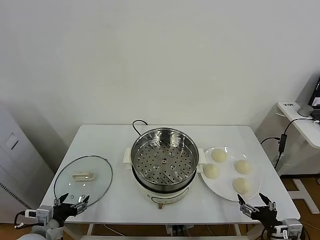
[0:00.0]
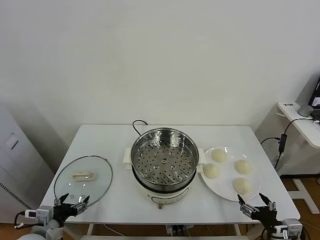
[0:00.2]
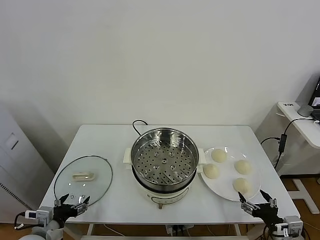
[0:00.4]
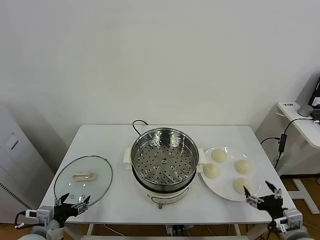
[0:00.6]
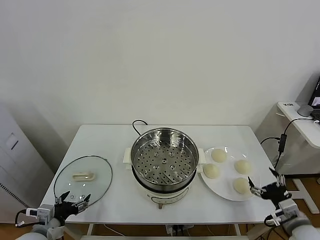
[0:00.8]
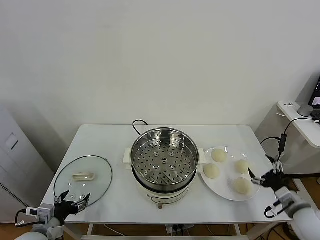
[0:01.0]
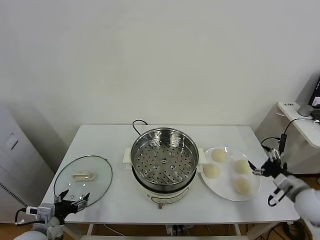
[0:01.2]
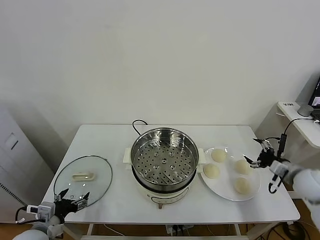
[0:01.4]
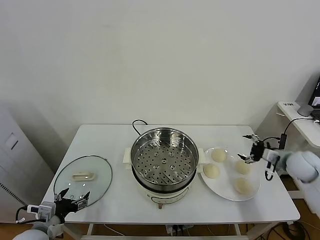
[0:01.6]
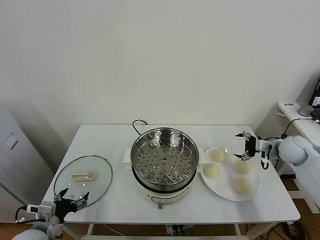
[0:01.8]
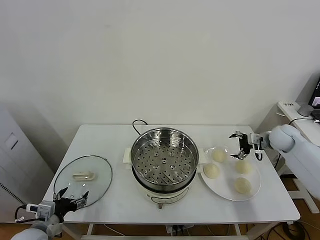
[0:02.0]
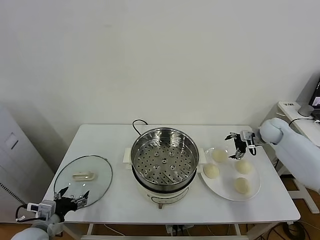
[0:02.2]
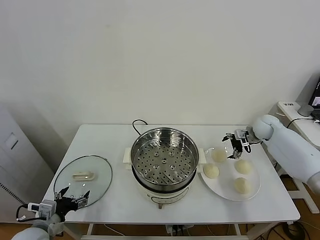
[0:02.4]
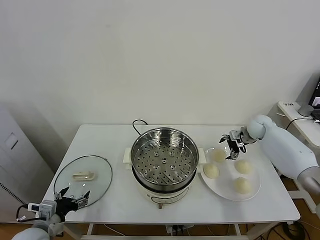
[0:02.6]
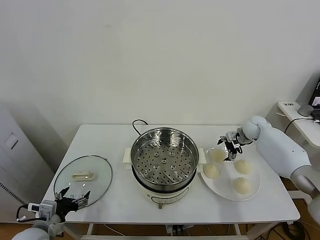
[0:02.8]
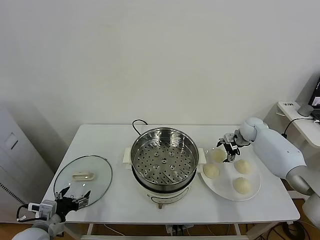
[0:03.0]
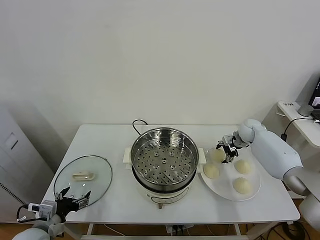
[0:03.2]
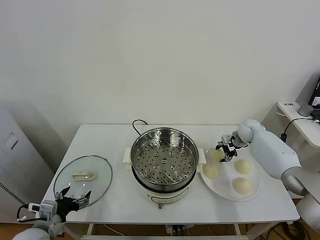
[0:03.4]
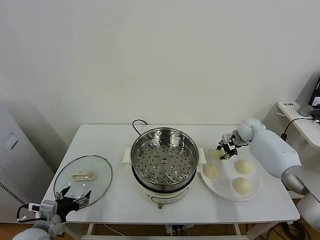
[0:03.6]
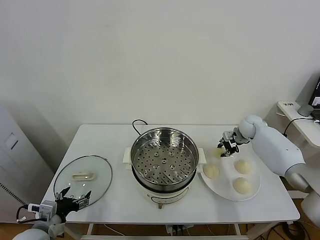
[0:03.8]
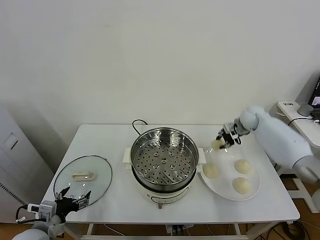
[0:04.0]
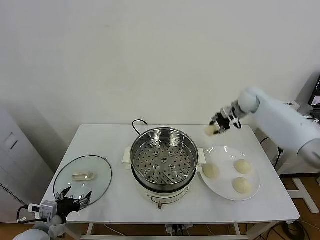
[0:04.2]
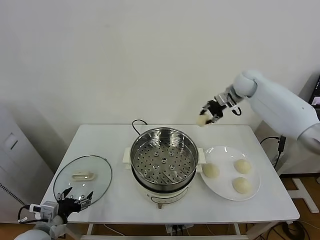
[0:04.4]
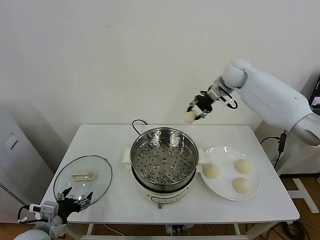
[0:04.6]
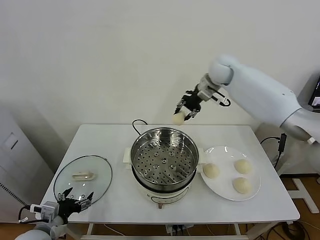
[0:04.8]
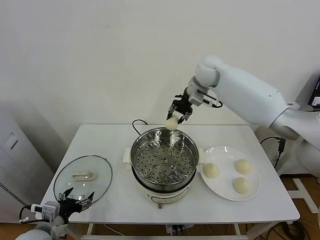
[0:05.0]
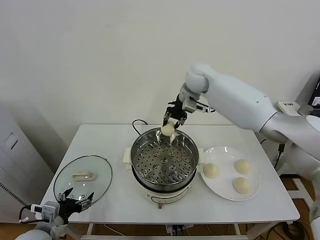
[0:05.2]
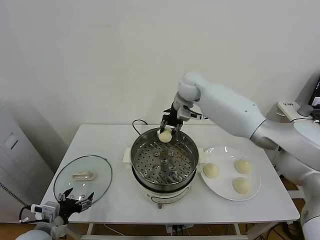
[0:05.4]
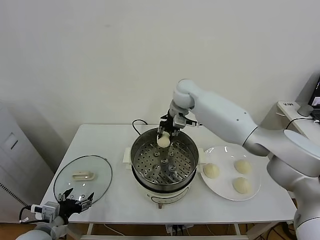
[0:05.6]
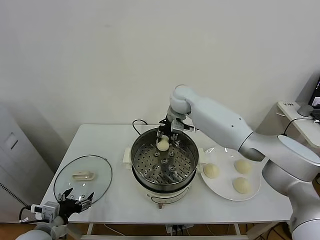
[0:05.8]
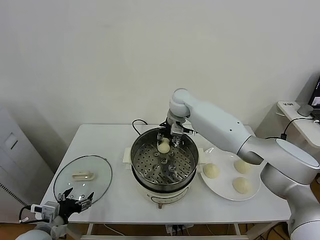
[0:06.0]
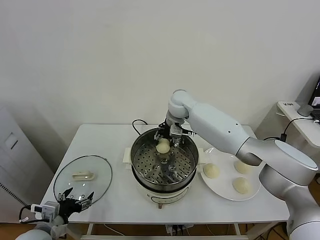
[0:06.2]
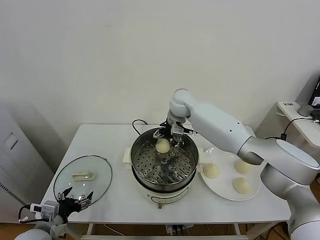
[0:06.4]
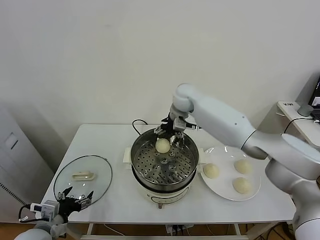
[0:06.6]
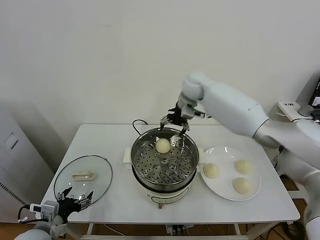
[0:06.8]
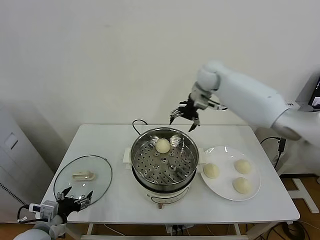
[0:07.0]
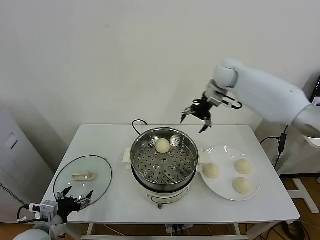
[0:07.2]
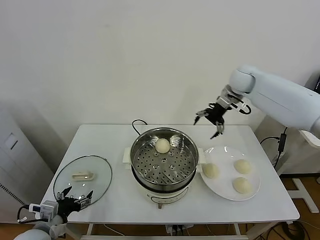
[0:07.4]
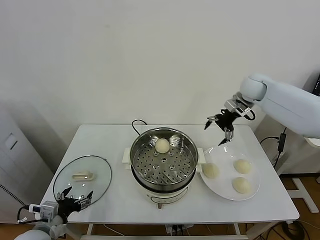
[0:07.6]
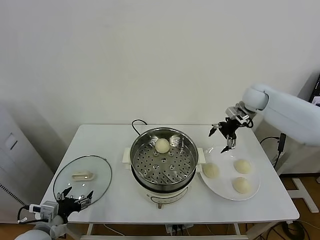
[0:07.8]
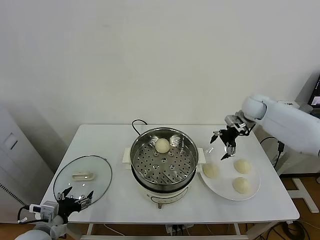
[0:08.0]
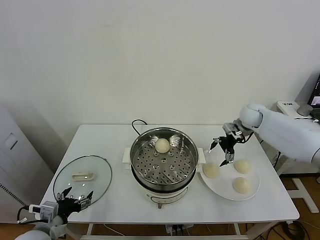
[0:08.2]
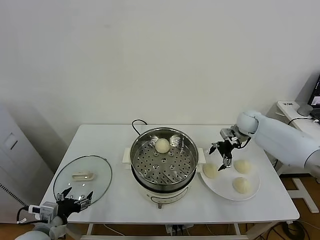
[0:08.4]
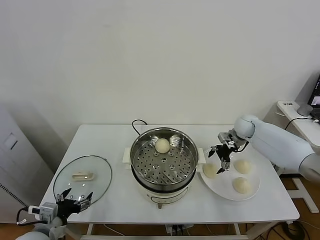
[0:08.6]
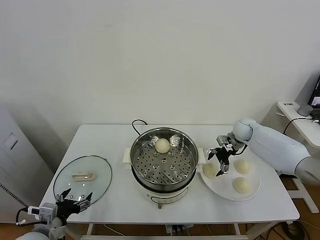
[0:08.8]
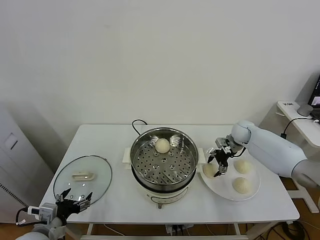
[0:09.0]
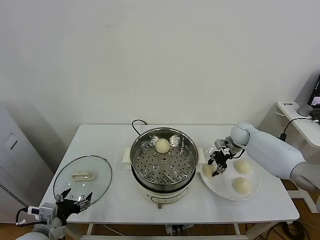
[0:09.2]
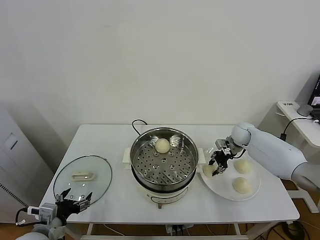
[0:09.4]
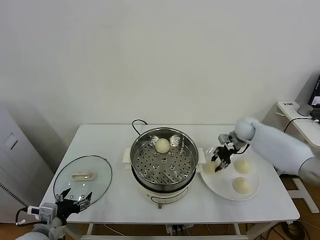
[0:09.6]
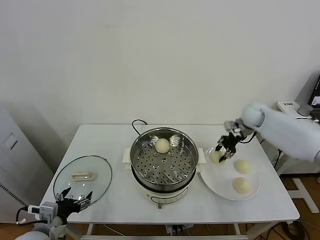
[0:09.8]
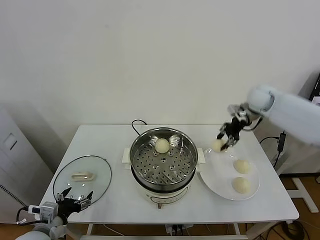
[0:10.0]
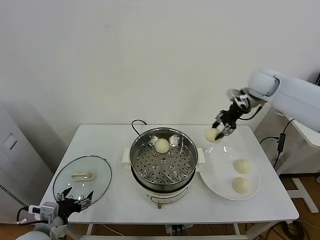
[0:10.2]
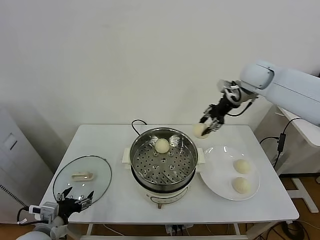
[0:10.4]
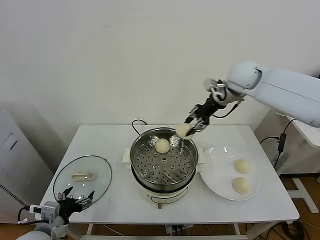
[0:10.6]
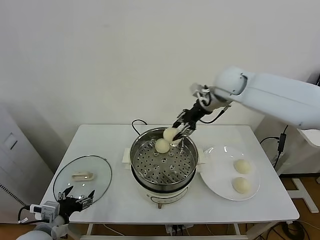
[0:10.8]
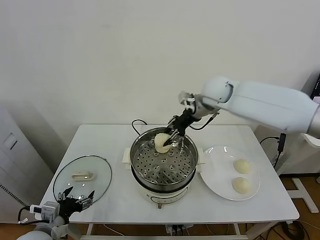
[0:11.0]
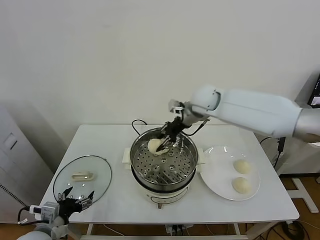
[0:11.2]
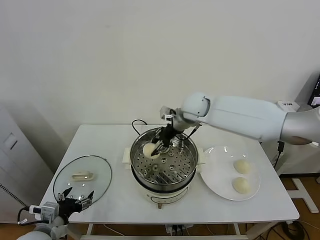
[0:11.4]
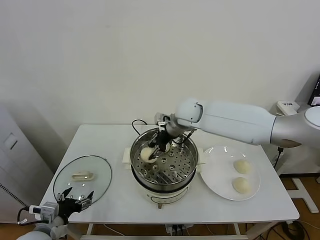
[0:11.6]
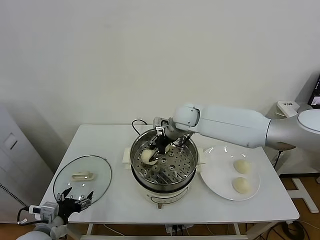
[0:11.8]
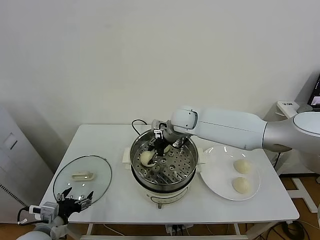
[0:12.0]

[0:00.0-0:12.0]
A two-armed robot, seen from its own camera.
Task of the whole recording: take steamed baozi put them in steamer.
Step, 0:00.0 to 0:03.4: Grasp the baozi in the plate with right gripper.
Step, 0:03.6 to 0:06.4: Place the baozi on the steamer with right gripper.
Step, 0:06.6 to 0:09.2: Grasp the baozi in the plate with right gripper.
0:01.6 to 0:03.0: The right gripper is displaced forward and to the left by some 20 cm.
0:03.0 to 0:04.4: The right gripper goes about 25 cm upward and to the left, and closes its fingers.
0:04.4 to 0:06.0: The right gripper heads to the left and downward, covering roughly 25 cm.
0:06.0 to 0:07.6: The right gripper moves to the right, about 25 cm, and opens.
0:07.6 to 0:09.0: The right gripper moves downward, about 20 cm, and closes.
0:09.0 to 0:10.4: The right gripper heads upward, covering some 25 cm, and closes its fingers.
0:10.4 to 0:12.0: The right gripper travels to the left and downward by roughly 25 cm.

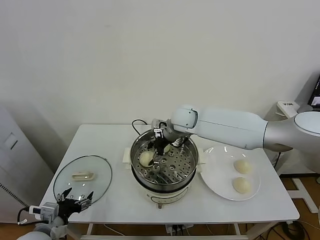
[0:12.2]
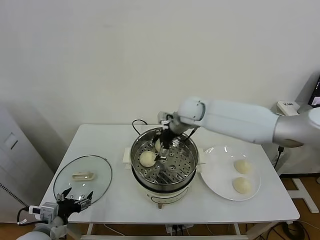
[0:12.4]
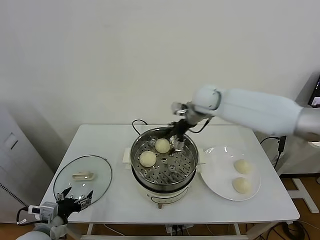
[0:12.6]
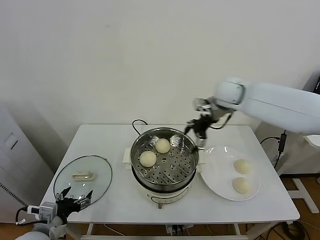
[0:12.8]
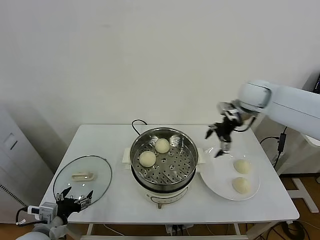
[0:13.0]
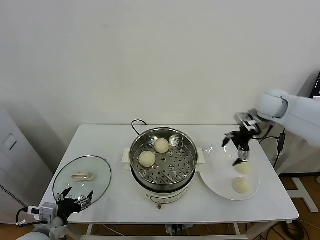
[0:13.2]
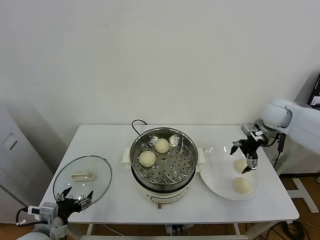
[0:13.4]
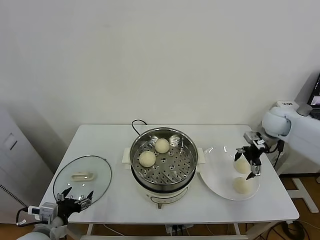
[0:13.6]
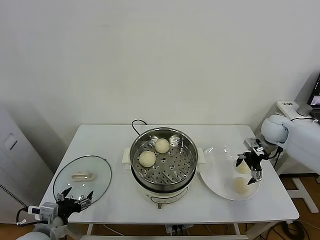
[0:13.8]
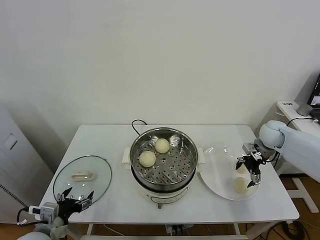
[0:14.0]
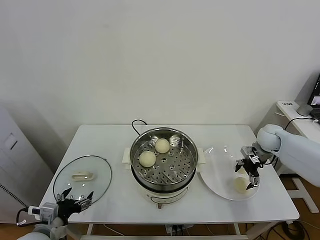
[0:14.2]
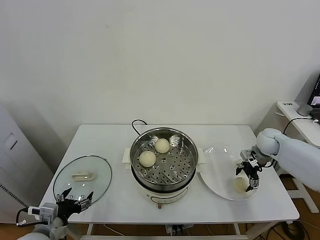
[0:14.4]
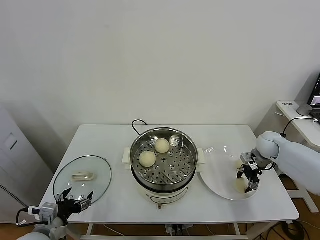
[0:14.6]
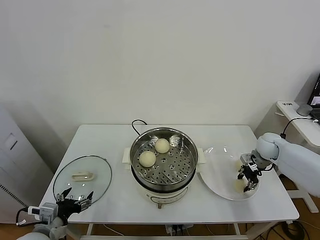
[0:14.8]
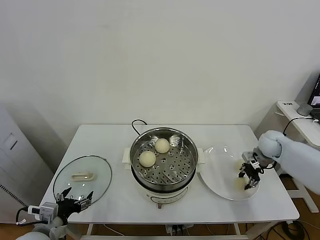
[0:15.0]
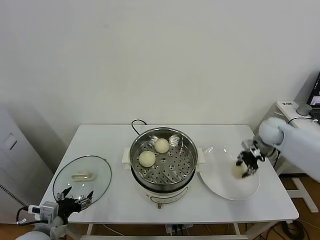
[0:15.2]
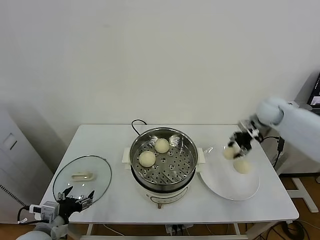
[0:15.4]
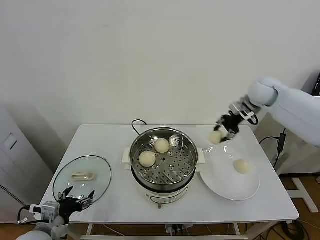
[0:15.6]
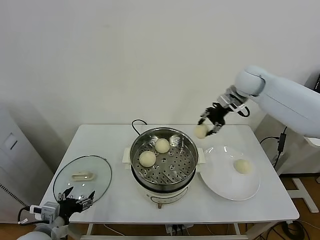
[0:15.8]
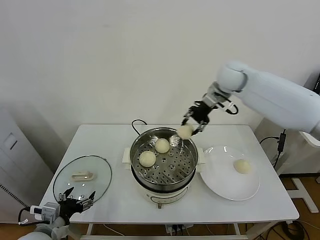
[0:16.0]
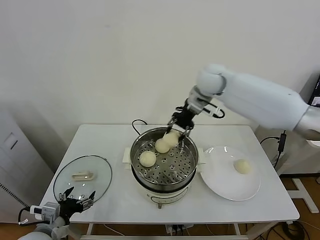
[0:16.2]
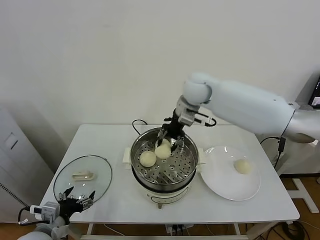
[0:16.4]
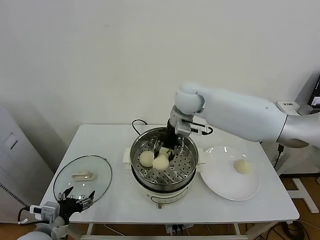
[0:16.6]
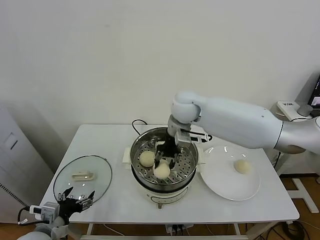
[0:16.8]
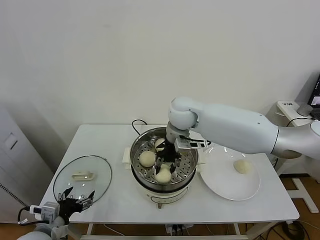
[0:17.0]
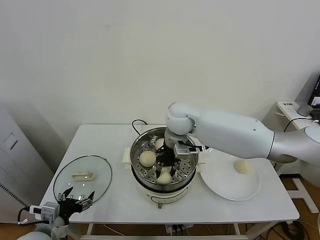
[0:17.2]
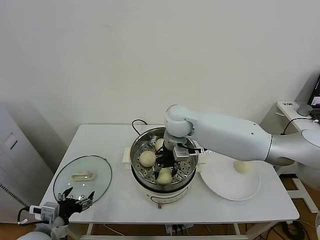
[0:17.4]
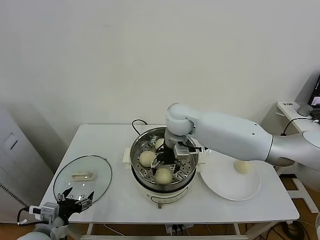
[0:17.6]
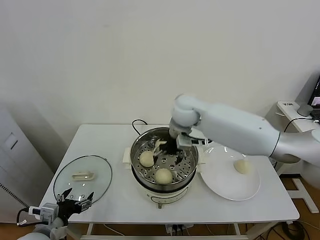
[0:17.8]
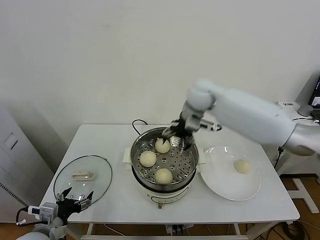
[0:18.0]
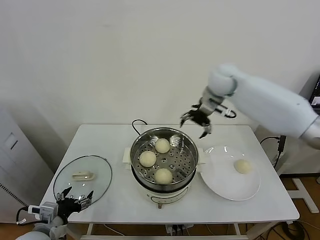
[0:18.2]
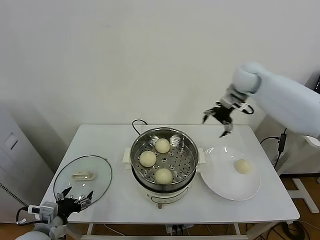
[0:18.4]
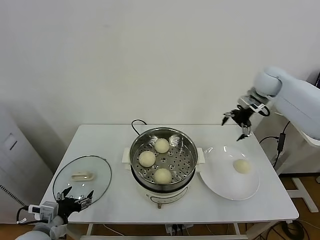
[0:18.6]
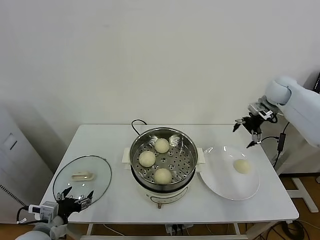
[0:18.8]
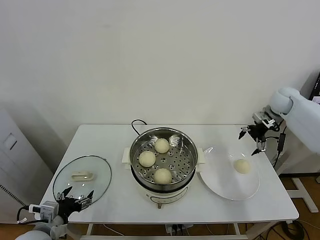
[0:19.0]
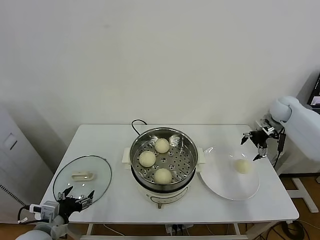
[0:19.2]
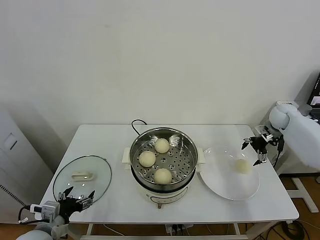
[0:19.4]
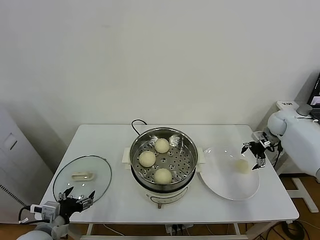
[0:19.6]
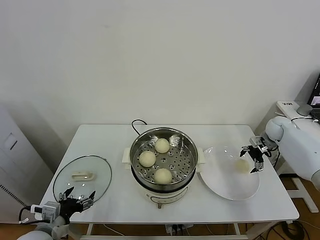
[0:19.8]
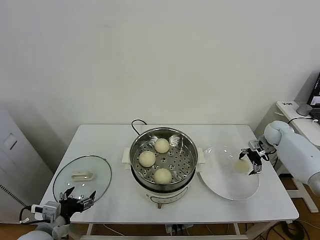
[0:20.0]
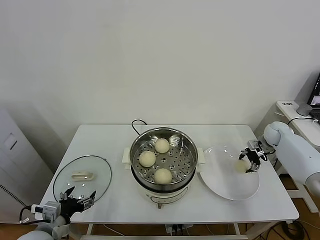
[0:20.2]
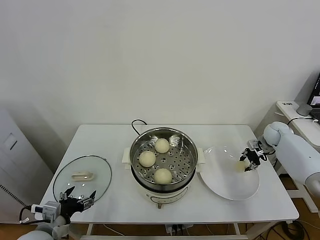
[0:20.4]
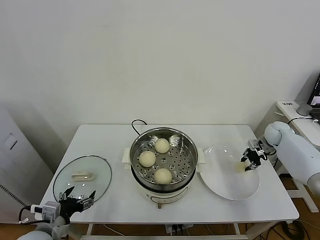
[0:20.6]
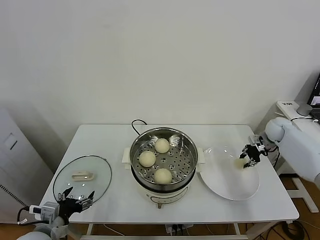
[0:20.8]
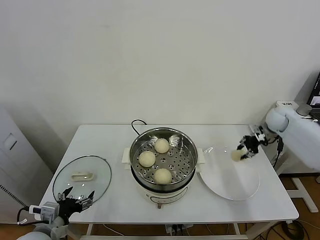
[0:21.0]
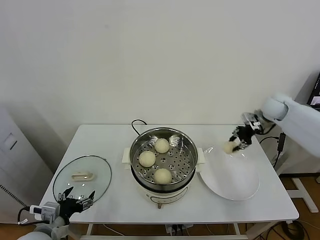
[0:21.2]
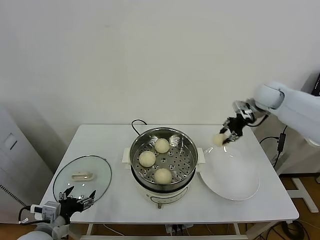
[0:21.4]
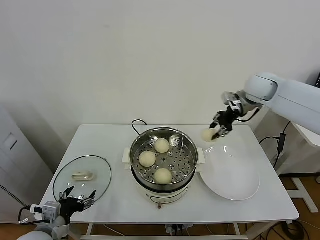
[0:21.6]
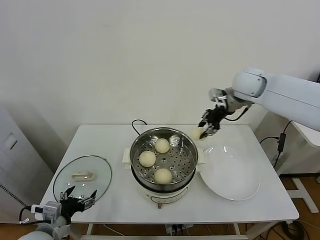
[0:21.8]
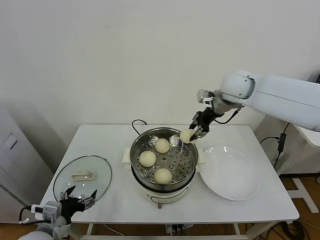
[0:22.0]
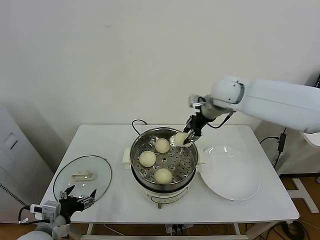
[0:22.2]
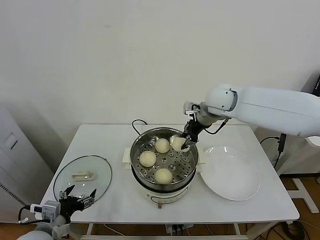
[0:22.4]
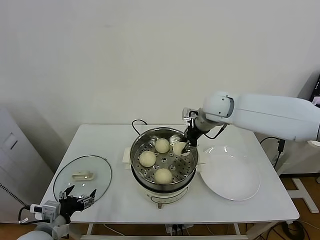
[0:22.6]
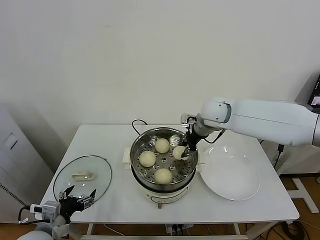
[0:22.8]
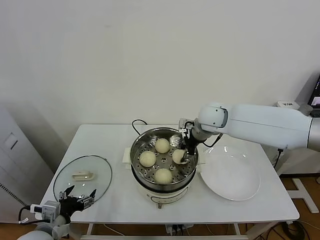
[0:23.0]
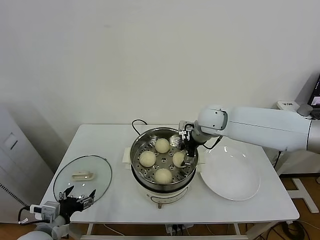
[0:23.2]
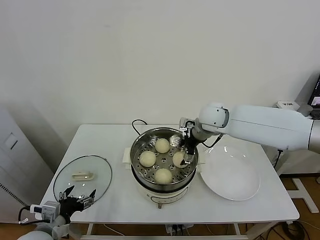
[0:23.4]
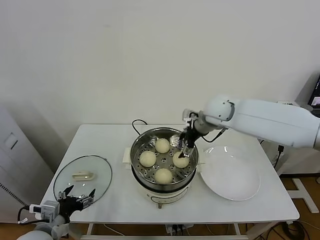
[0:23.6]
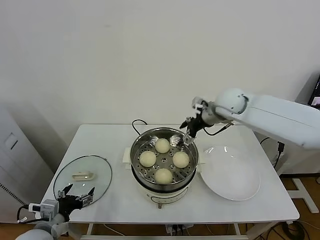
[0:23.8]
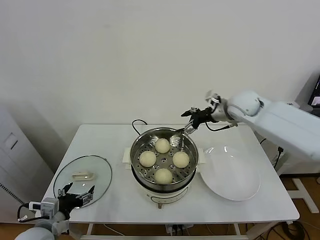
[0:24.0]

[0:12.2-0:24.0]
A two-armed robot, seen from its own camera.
Task of the whole recording: take steamed baozi put them in steamer.
Step, 0:12.6 to 0:14.8: Grasp the baozi in the plate with right gripper.
Step, 0:15.0 to 0:17.6: Place the baozi on the steamer with right gripper.
Step, 0:17.8 to 0:20.4: Grasp the baozi in the plate with right gripper.
Step, 0:20.6 to 0:23.4: Place the baozi on the steamer with right gripper.
0:12.2 to 0:13.6: The right gripper goes some 30 cm to the right.
0:13.6 to 0:15.2: The right gripper goes downward and returns, approximately 10 cm each way, and closes.
0:15.2 to 0:16.6: The right gripper is displaced to the left by some 35 cm.
0:16.6 to 0:18.2: The right gripper heads to the right, covering some 10 cm, and opens.
0:18.2 to 0:19.6: The right gripper moves to the right and downward, some 35 cm.
0:19.6 to 0:21.0: The right gripper closes up.
0:21.0 to 0:22.6: The right gripper is displaced to the left by some 25 cm.
0:22.6 to 0:24.0: The right gripper travels to the right by about 10 cm, and opens up.
